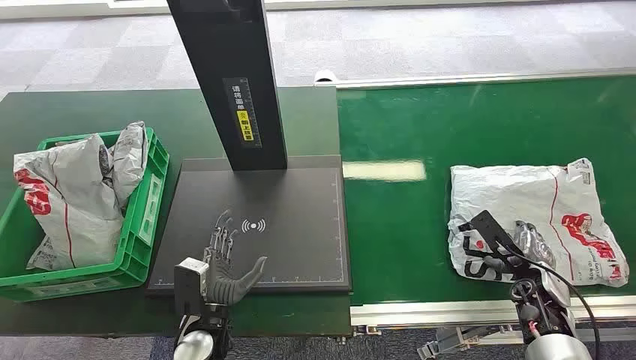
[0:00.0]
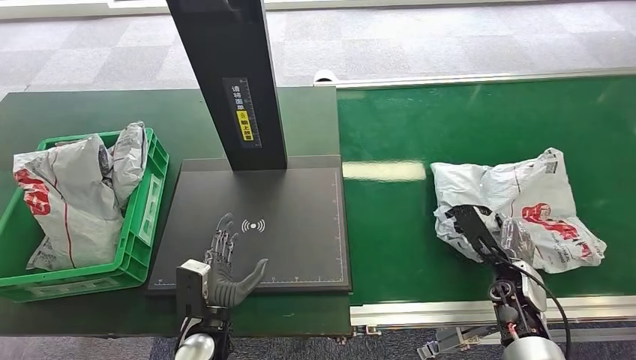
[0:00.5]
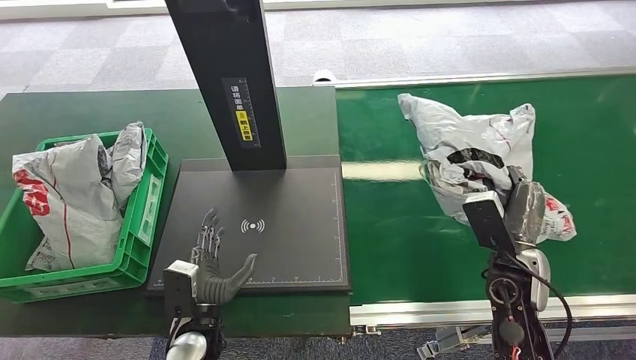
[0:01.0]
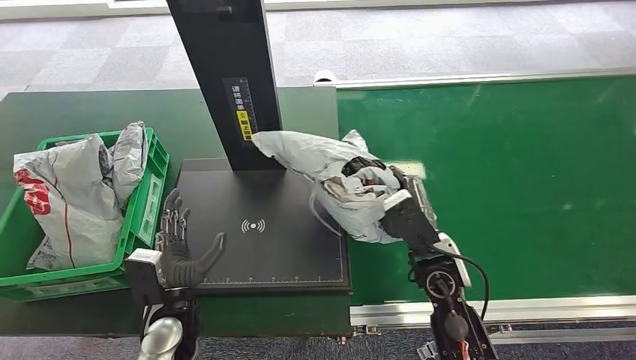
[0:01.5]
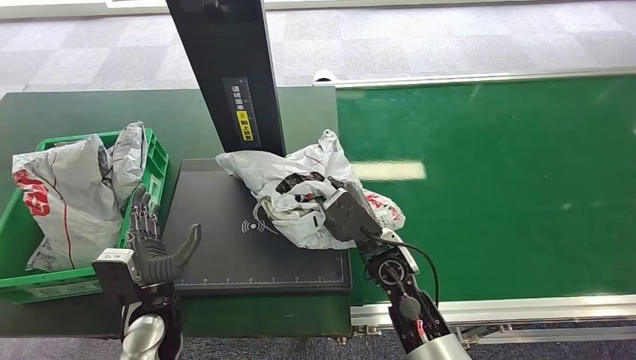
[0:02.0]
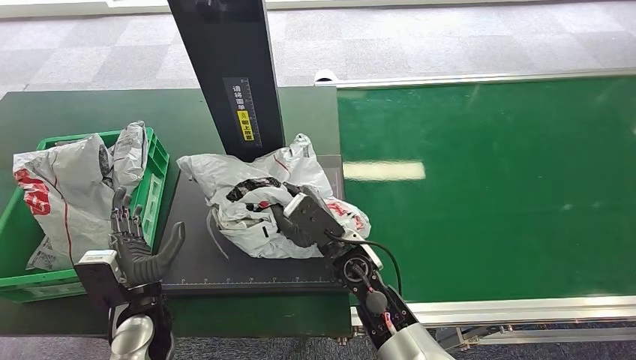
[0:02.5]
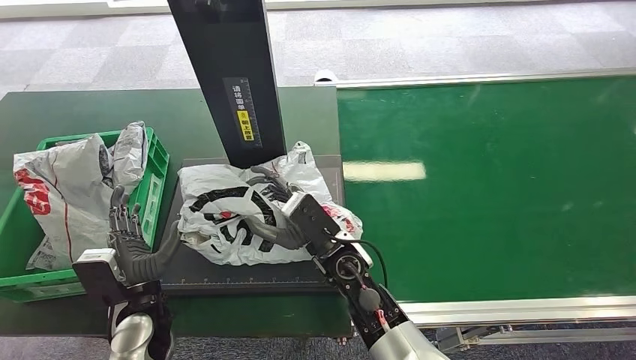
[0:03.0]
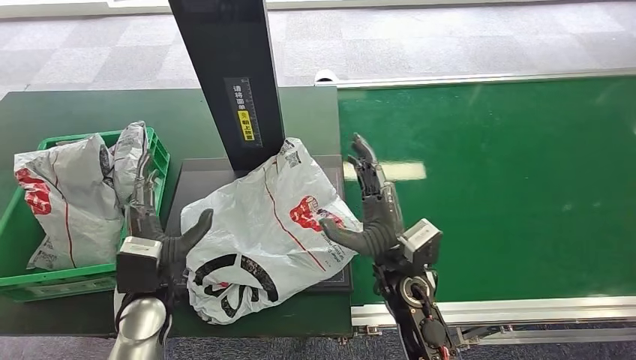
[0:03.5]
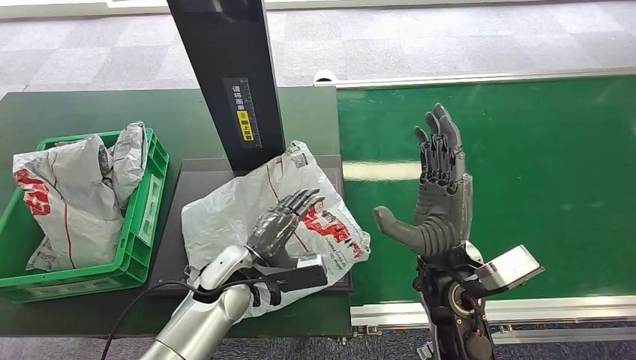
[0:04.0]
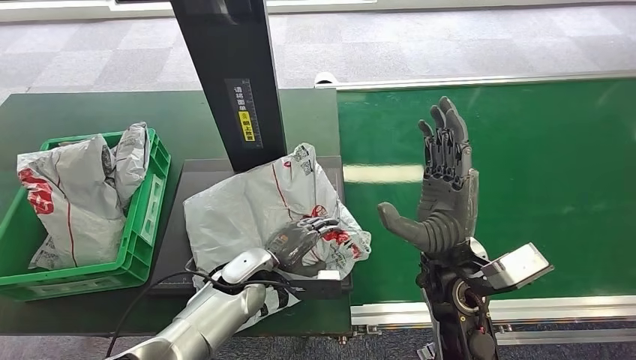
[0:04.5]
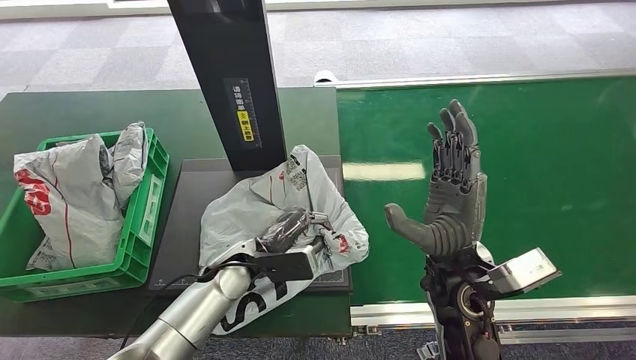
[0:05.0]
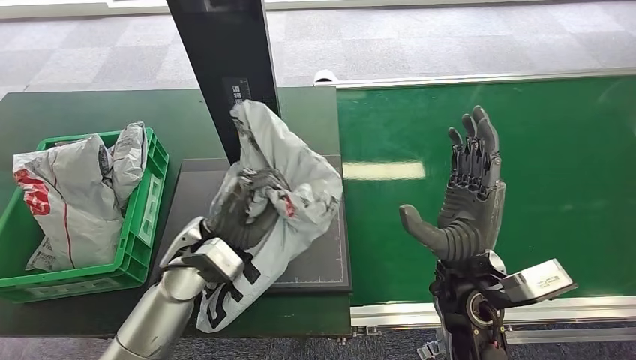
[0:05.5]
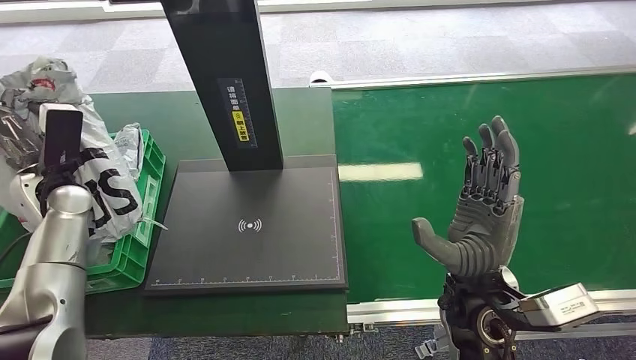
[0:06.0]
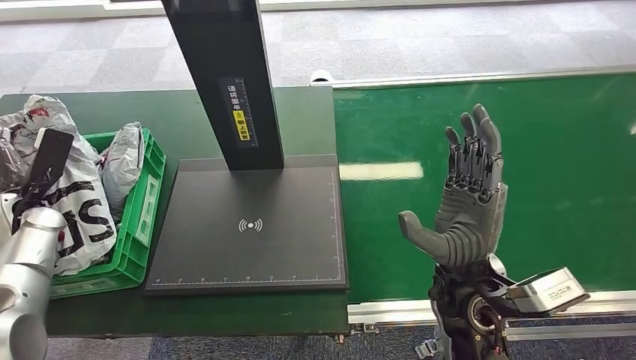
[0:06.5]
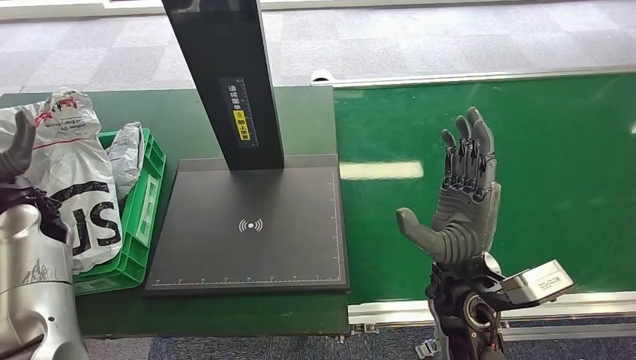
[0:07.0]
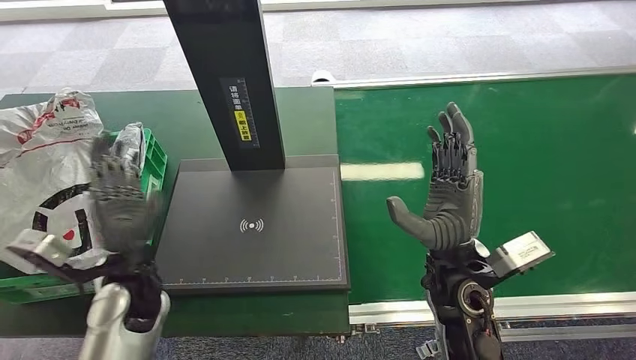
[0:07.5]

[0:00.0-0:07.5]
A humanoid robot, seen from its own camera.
Step, 0:00.0 to 0:01.0: Pick up the package from the conveyor belt.
Step, 0:01.5 to 0:03.5: Place the package onto the inbound machine.
Step, 0:04.0 to 0:06.0: Pick up the package from the inbound machine.
Step, 0:06.5 to 0:07.5: Place the package into the parcel locker.
0:02.0 to 0:04.0: The left hand travels to the right and forward by some 10 cm. The right hand moves upward, roughly 10 cm.
0:04.0 to 0:05.5: The left hand goes some 10 cm upward.
